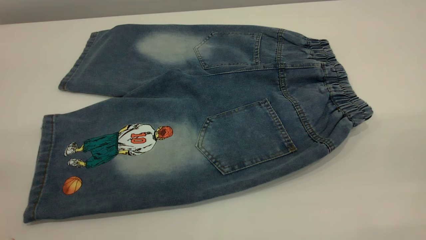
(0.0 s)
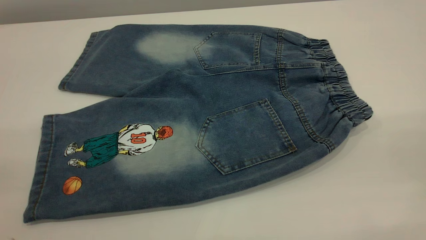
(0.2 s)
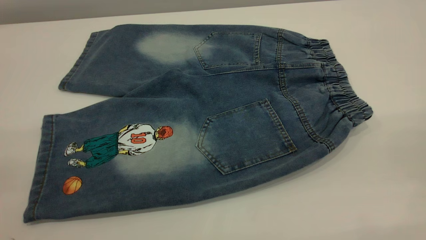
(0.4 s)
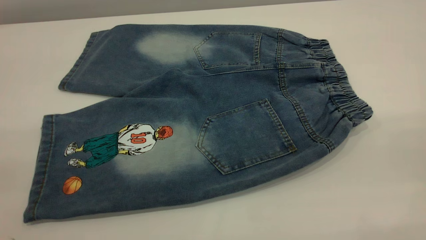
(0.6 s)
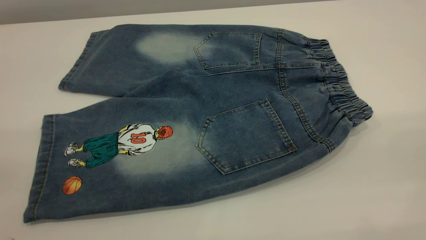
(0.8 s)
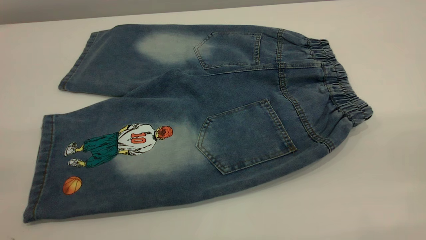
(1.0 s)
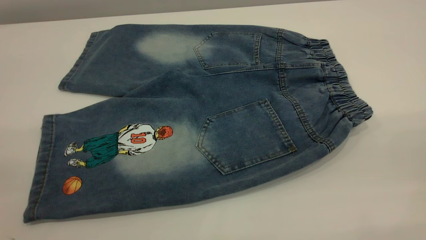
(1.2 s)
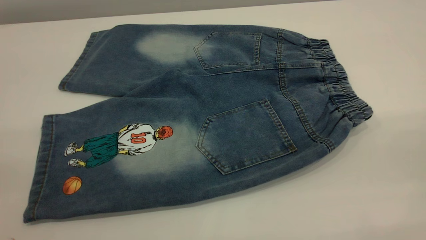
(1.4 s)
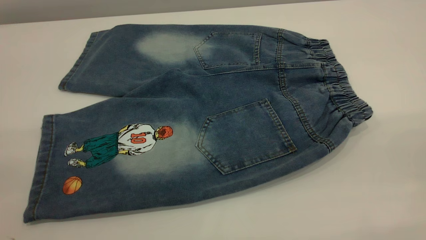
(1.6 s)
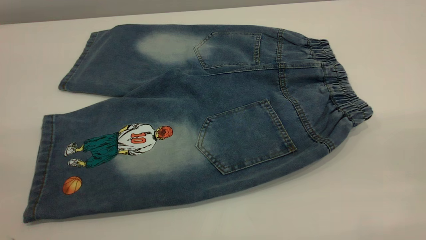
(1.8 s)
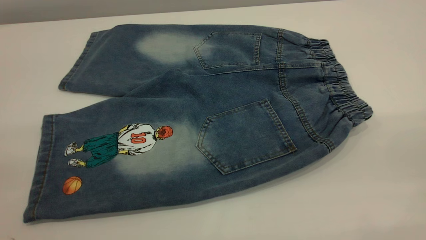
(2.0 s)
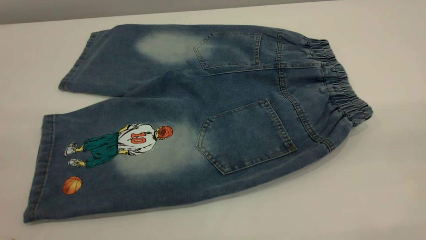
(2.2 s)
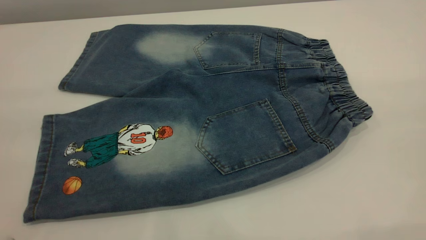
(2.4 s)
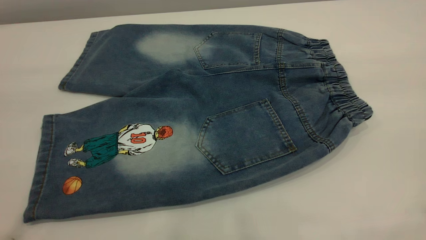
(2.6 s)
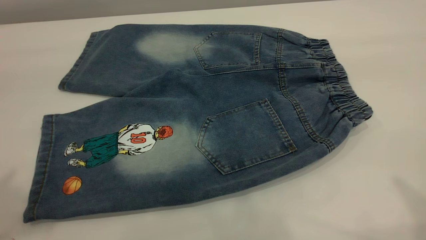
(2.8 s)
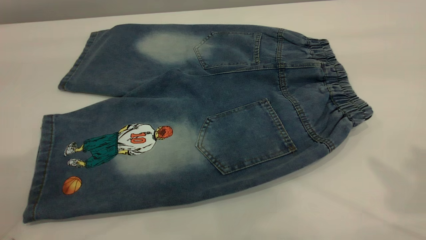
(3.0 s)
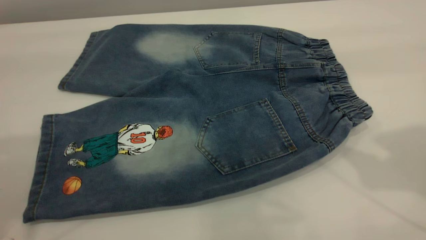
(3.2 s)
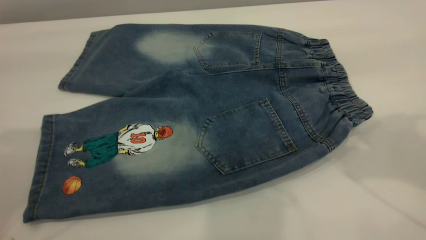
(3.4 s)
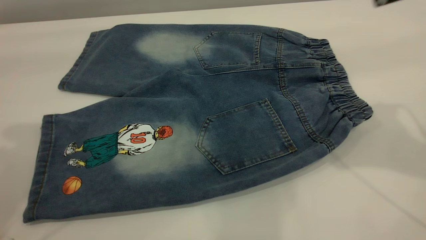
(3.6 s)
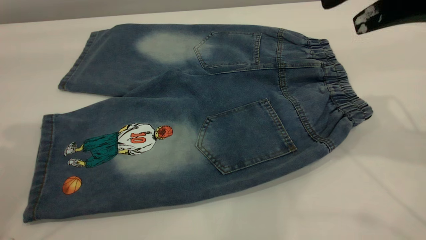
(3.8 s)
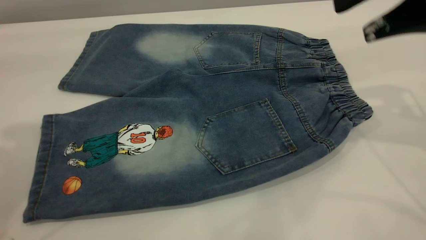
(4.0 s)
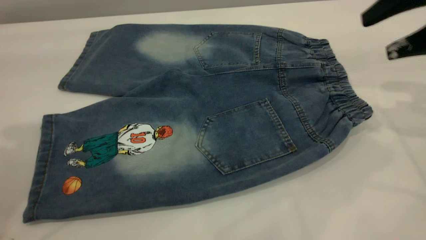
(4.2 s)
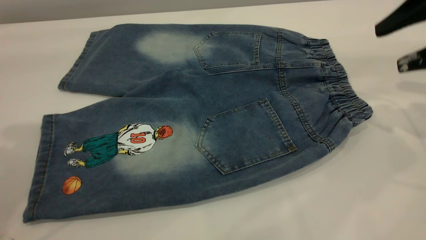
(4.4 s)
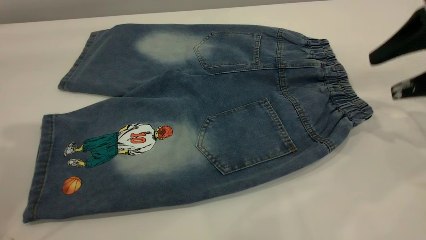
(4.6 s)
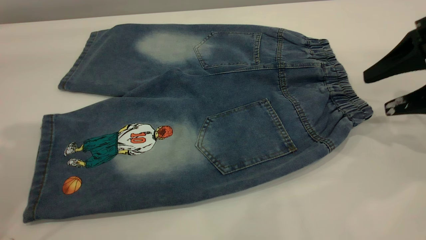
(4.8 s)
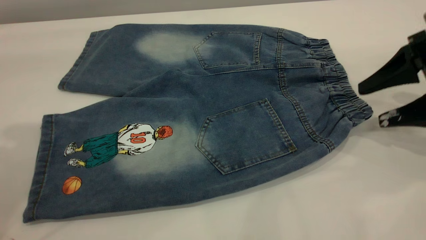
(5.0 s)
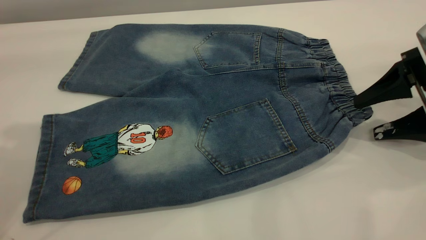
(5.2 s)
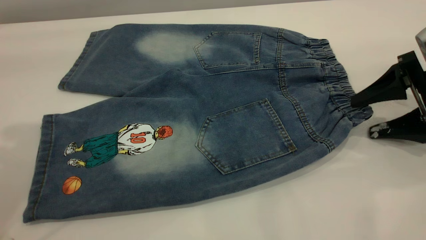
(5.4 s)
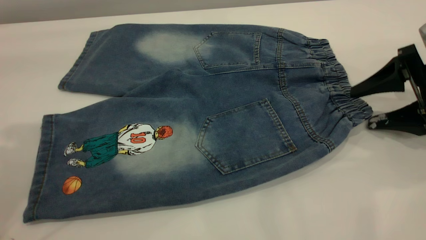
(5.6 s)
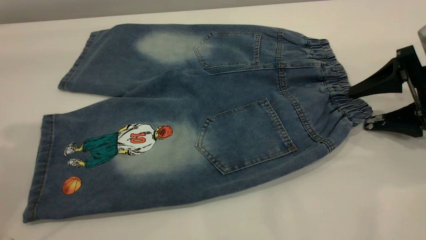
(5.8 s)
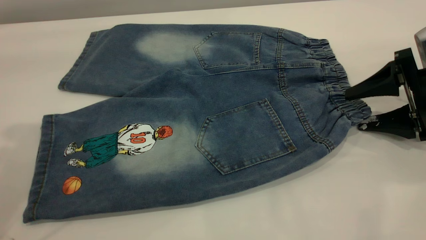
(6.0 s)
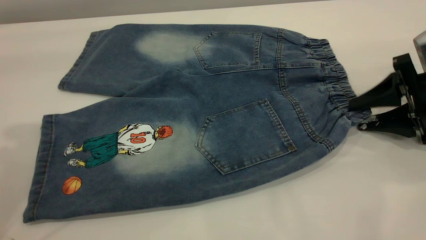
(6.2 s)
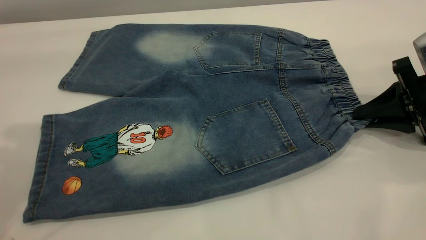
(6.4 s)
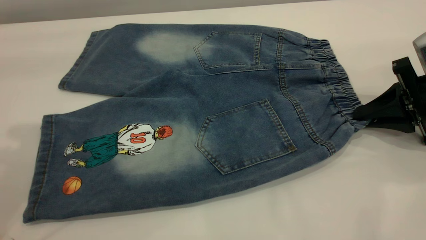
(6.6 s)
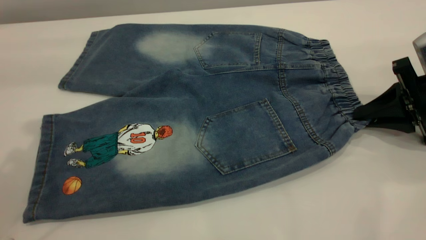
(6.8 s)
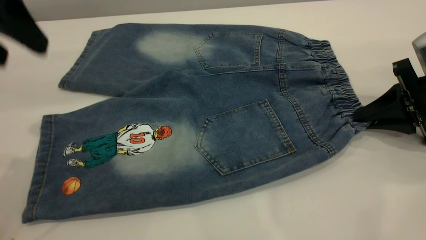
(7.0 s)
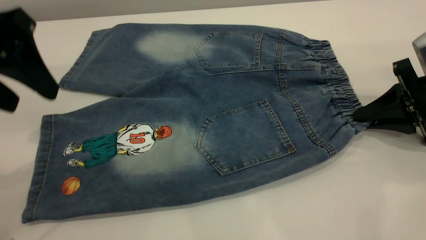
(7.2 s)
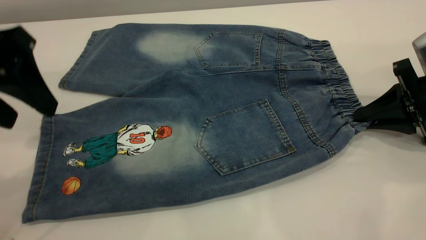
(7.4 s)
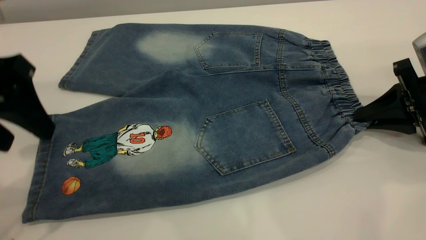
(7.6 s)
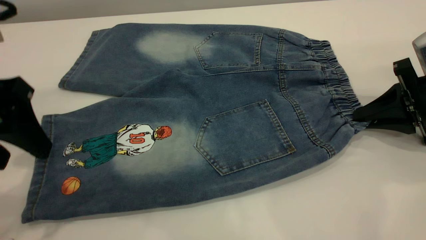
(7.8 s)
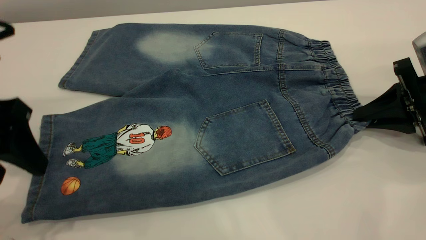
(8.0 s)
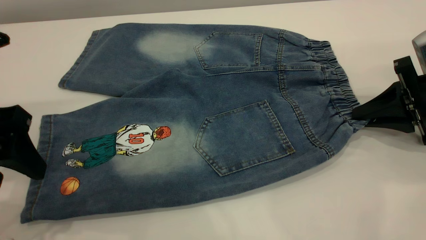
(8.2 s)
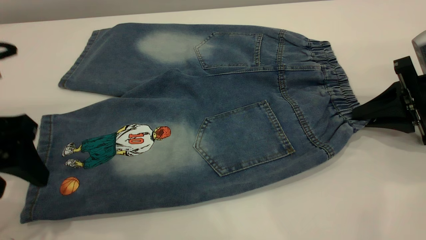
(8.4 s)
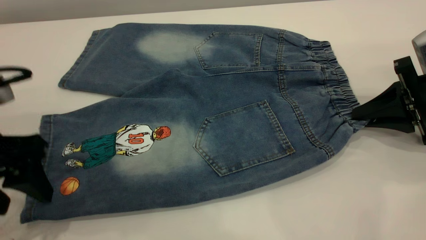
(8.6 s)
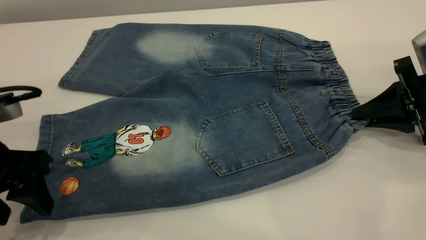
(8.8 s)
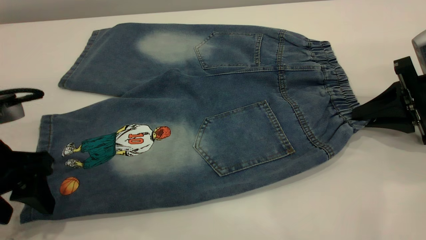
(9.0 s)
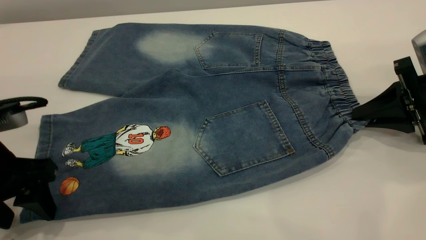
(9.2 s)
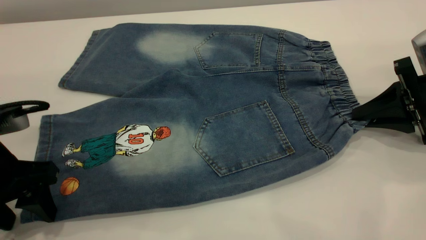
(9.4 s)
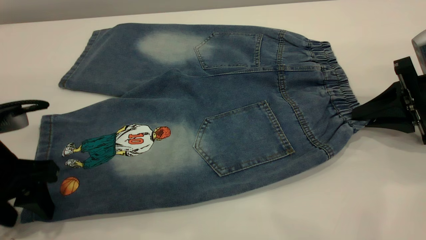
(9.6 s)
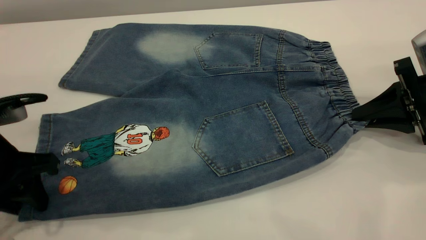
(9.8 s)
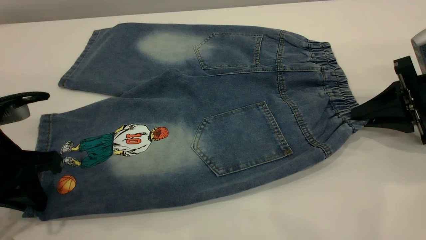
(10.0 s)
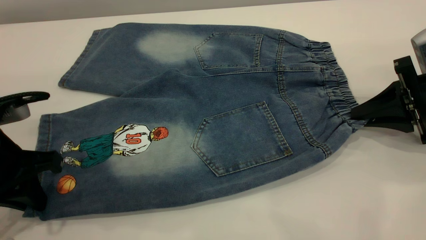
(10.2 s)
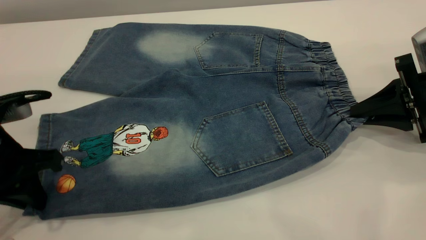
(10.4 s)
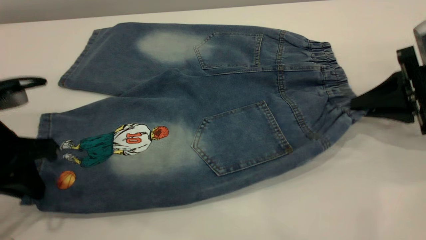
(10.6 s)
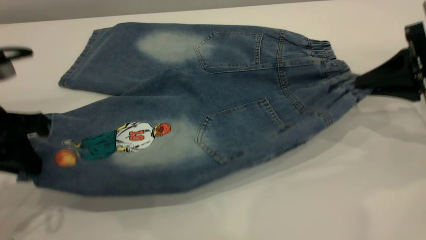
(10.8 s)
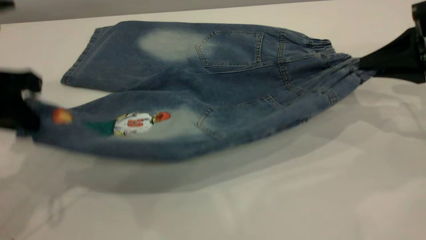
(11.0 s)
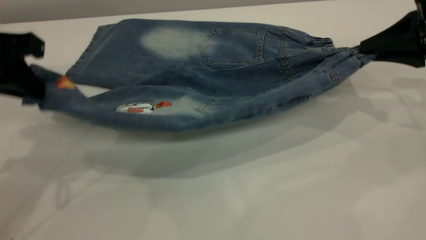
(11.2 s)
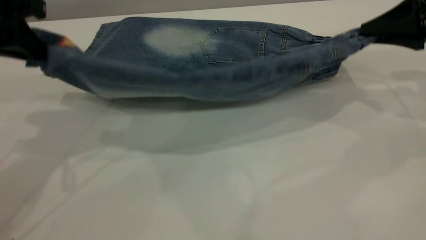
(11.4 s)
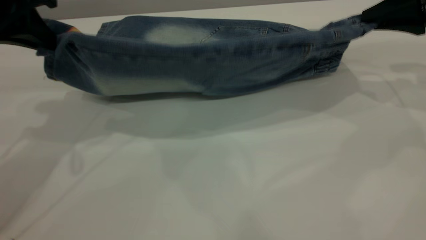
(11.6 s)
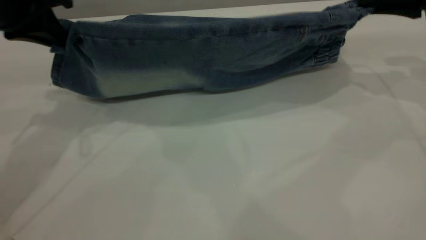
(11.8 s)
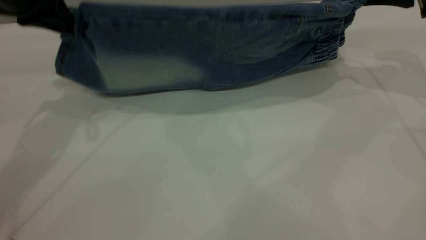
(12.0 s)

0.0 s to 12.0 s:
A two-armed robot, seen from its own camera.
0.0 to 1.6 s: Neither gripper changes place.
1.6 to 3.0 s: Both grippers move forward, roughly 20 cm.
3.0 to 4.4 s: The right gripper shifts roughly 25 cm downward and forward. The left gripper moves about 5 cm.
4.4 to 6.0 s: The right gripper is displaced downward by some 10 cm.
6.0 to 7.6 s: The left gripper goes some 15 cm downward. The right gripper closes its fingers.
7.6 to 9.0 s: The left gripper is displaced downward by roughly 10 cm.
9.0 to 10.4 s: The left gripper closes.
10.4 to 12.0 s: The left gripper shifts about 20 cm forward and upward, while the right gripper goes about 15 cm upward and forward.

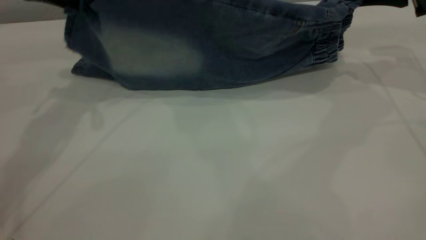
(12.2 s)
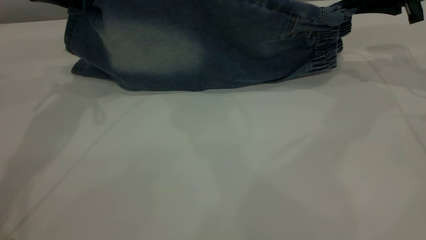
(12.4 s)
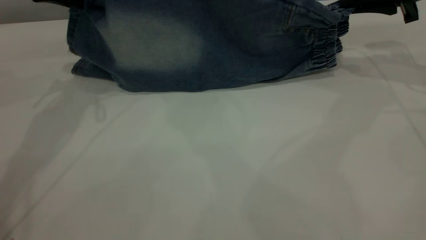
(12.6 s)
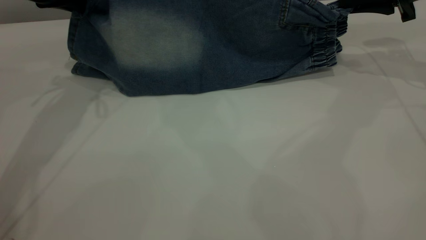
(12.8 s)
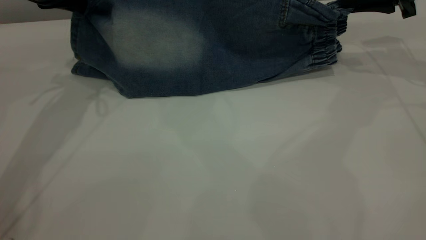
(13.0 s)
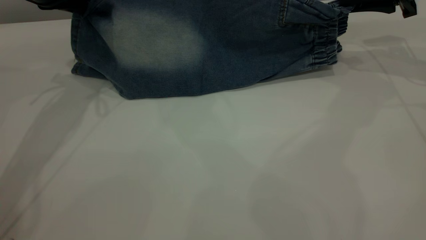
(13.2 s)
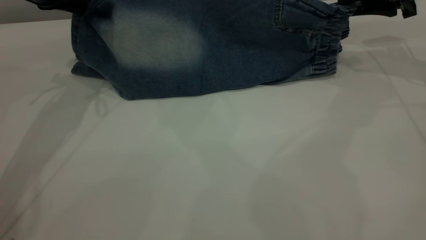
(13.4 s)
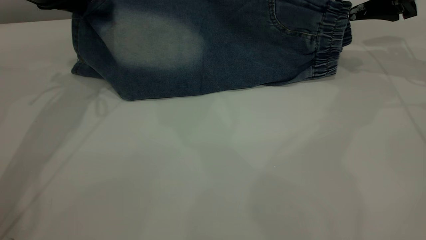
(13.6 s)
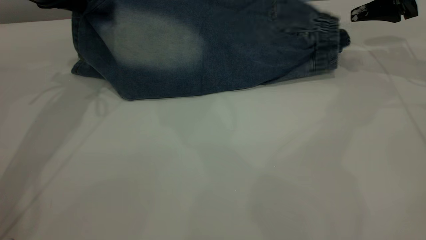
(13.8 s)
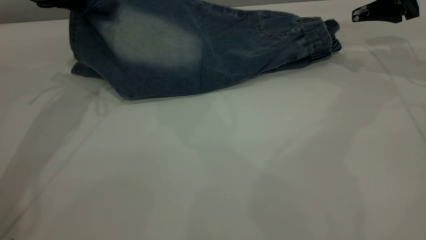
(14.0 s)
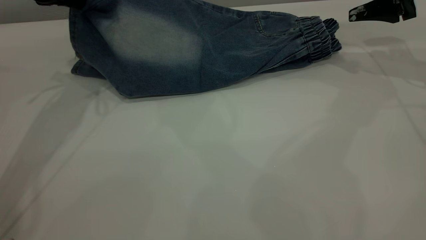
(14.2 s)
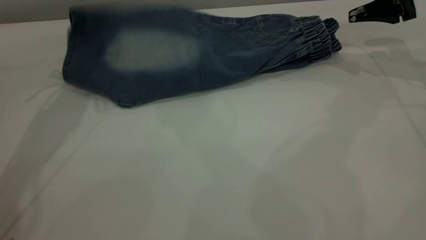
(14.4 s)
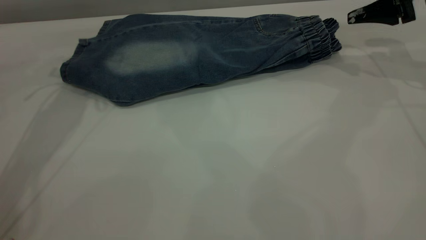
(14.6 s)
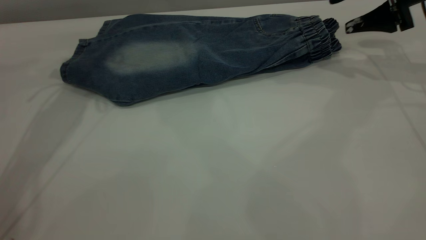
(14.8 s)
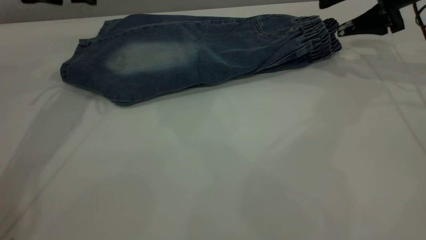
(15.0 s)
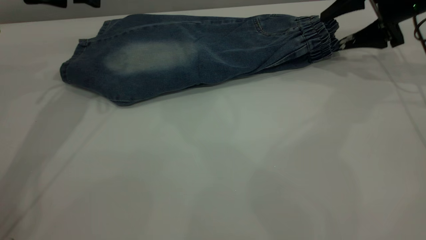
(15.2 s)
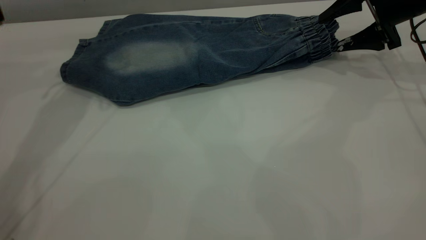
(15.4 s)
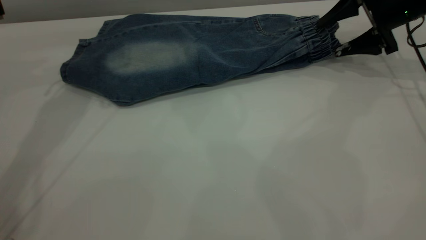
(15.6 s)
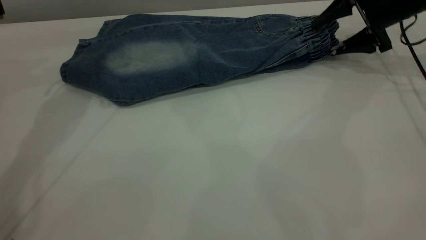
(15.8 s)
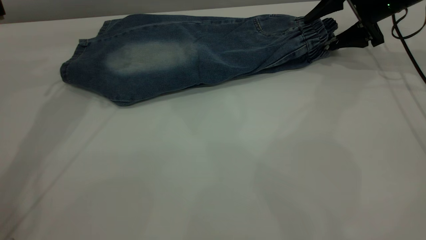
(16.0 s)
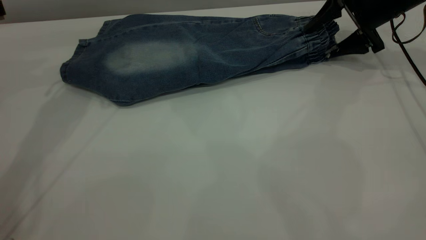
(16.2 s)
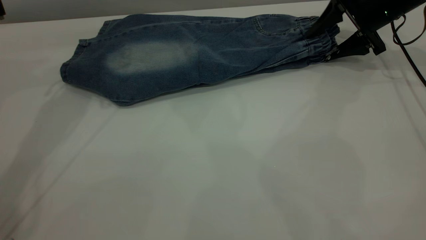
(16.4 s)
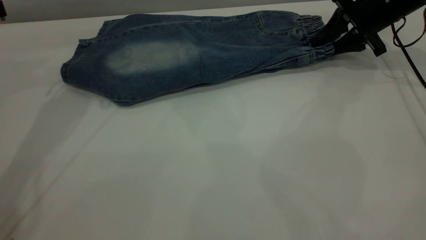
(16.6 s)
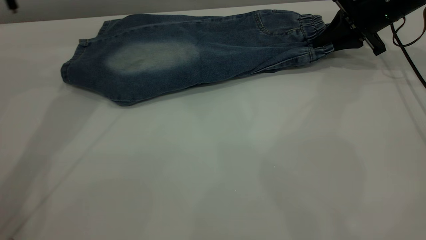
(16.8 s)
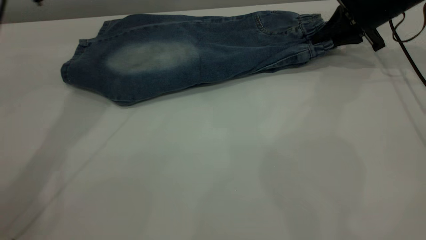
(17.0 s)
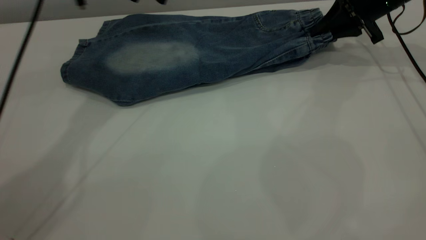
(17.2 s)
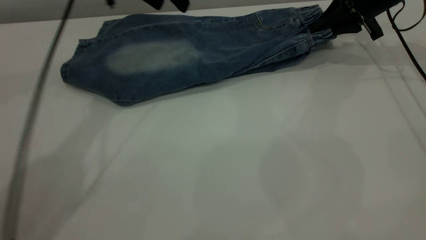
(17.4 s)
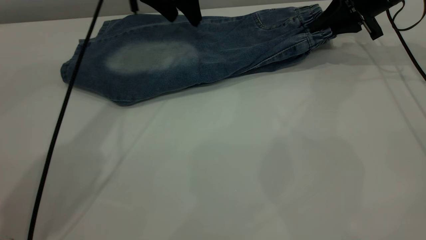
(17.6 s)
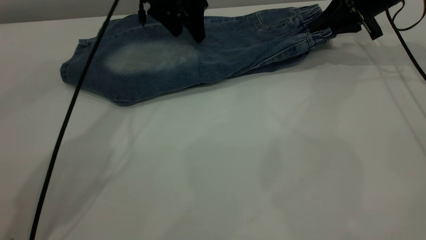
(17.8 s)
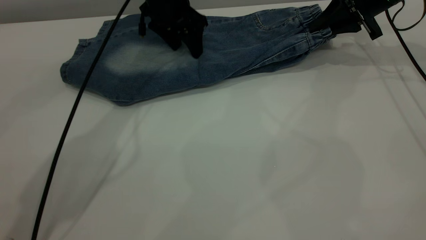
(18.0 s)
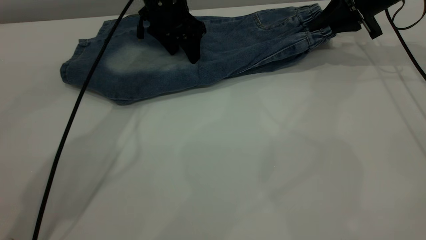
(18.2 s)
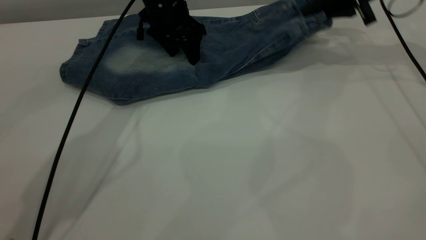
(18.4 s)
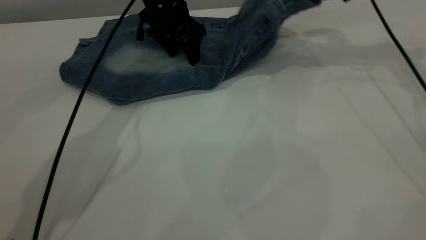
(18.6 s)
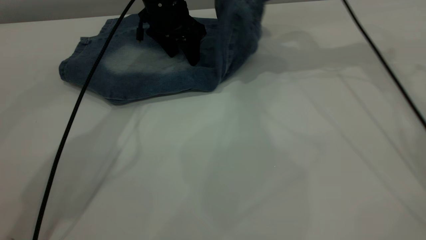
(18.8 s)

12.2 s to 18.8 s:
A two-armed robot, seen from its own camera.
Step, 12.2 to 14.6 s: Fold the bottom of the pants upward.
12.2 to 13.8 s: The right gripper opens up.
13.8 to 15.4 s: The left gripper opens up.
15.4 to 17.2 s: The left gripper travels to the right by some 10 cm, while the right gripper closes its fingers.
17.2 to 18.8 s: The left gripper shifts roughly 10 cm downward and to the right. The right gripper shifts roughly 15 cm to the left and upward.
